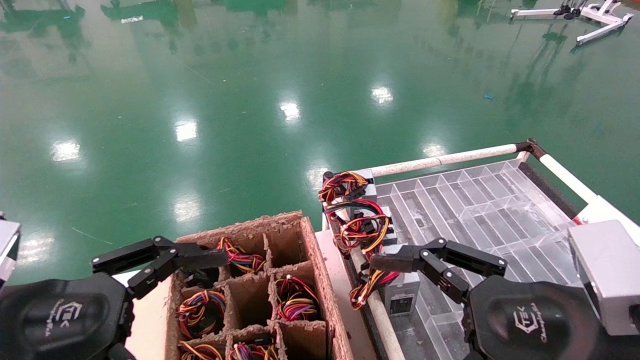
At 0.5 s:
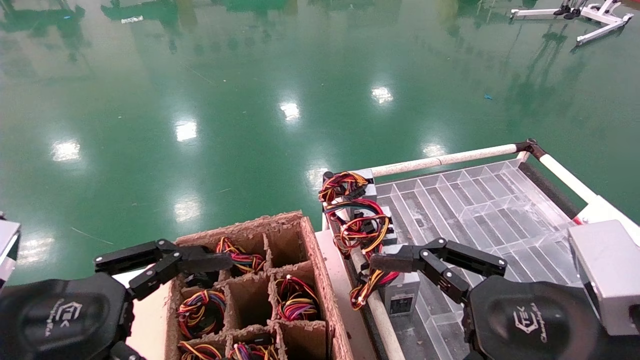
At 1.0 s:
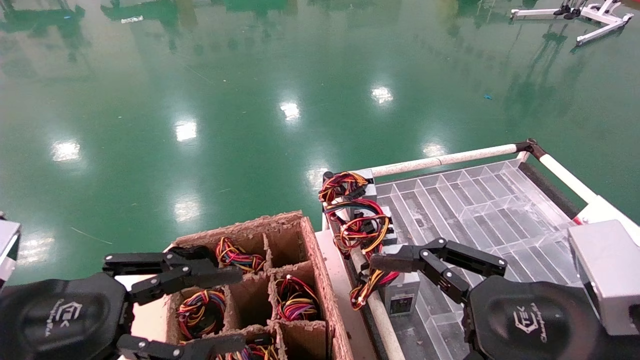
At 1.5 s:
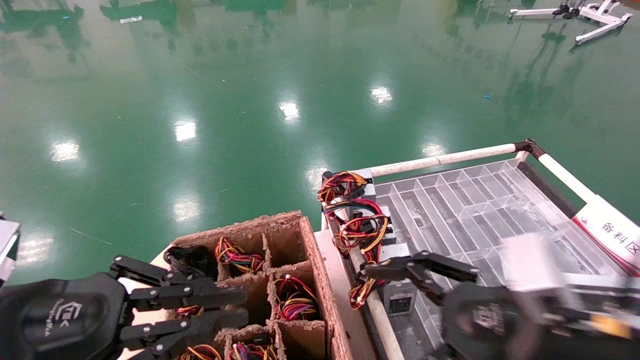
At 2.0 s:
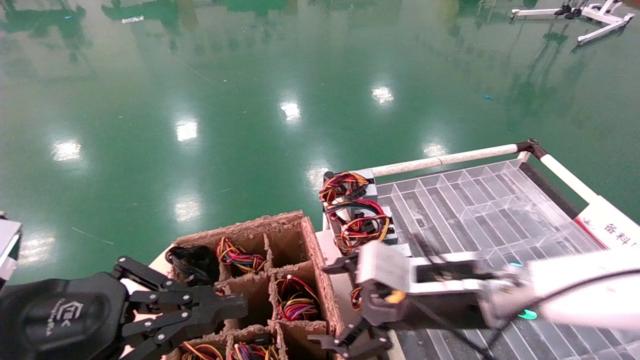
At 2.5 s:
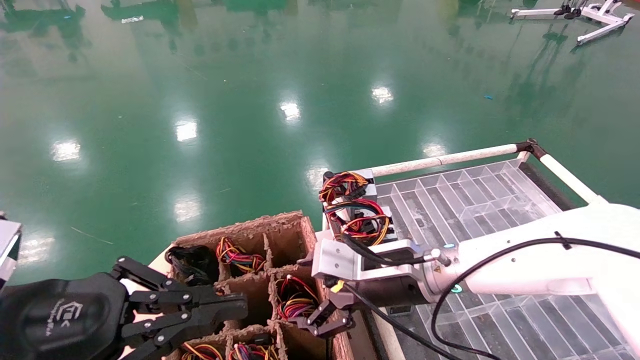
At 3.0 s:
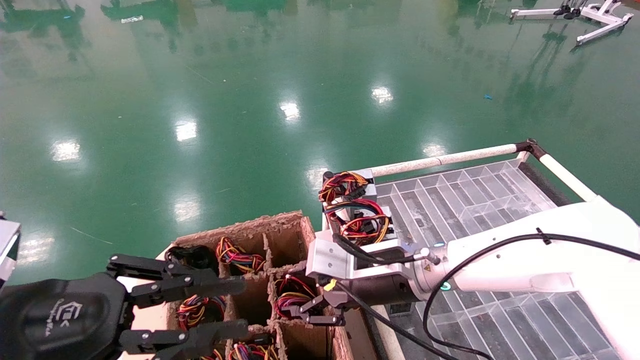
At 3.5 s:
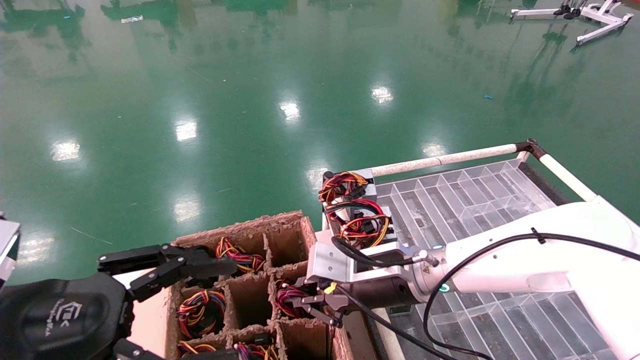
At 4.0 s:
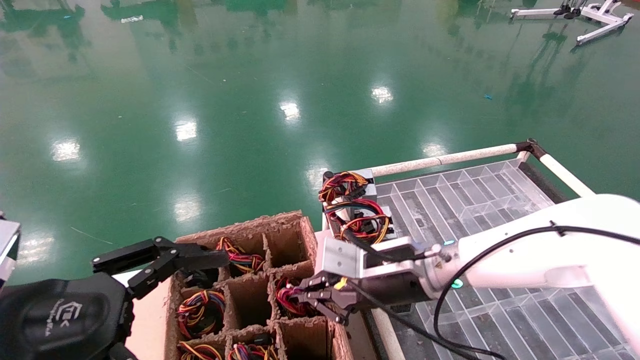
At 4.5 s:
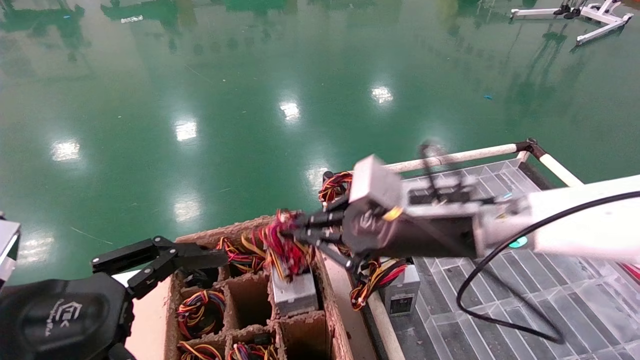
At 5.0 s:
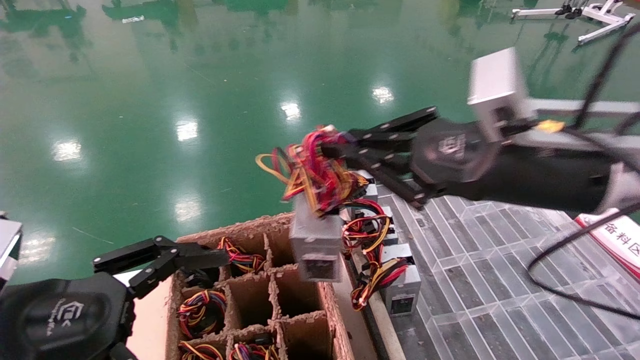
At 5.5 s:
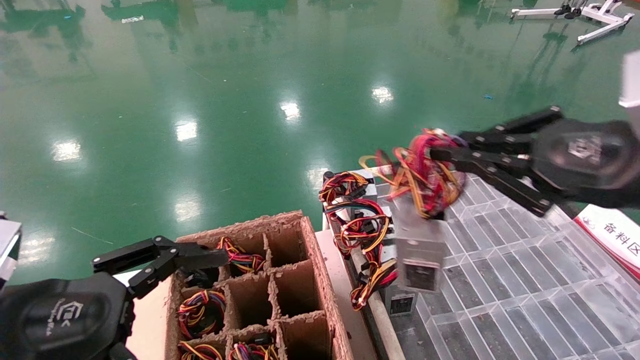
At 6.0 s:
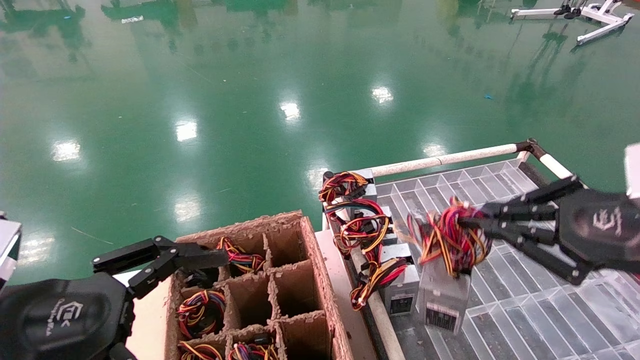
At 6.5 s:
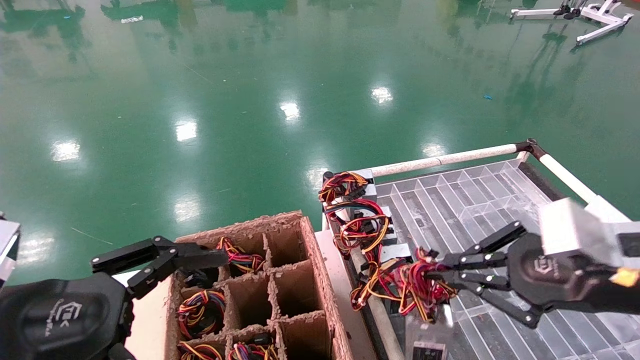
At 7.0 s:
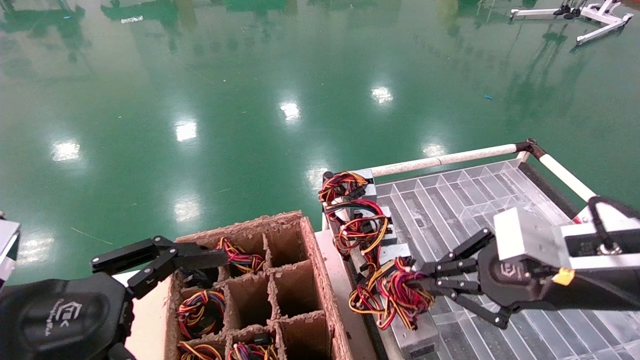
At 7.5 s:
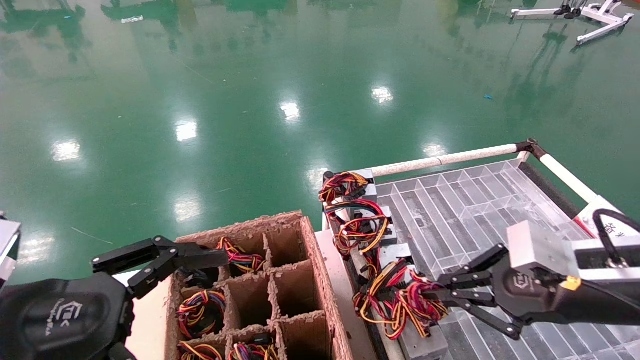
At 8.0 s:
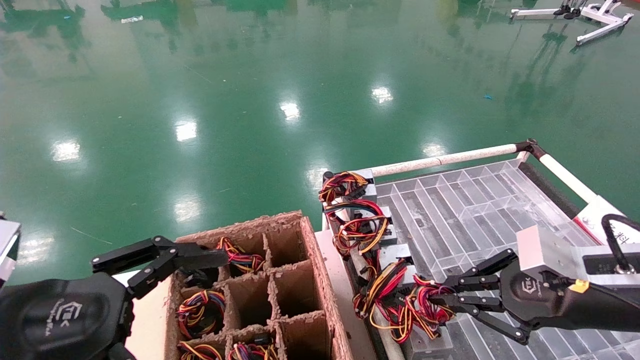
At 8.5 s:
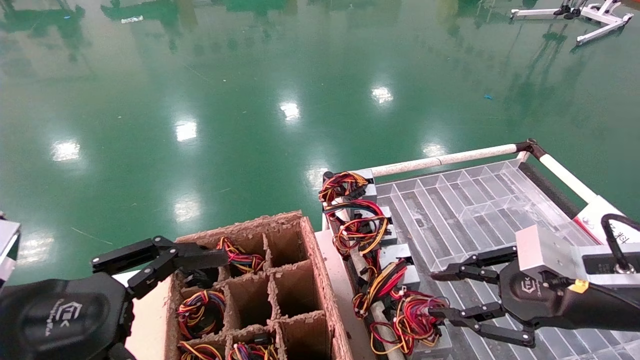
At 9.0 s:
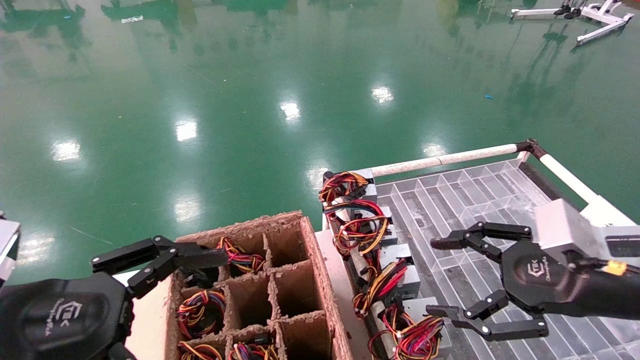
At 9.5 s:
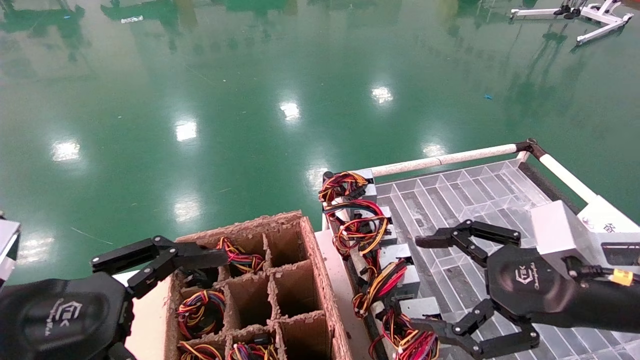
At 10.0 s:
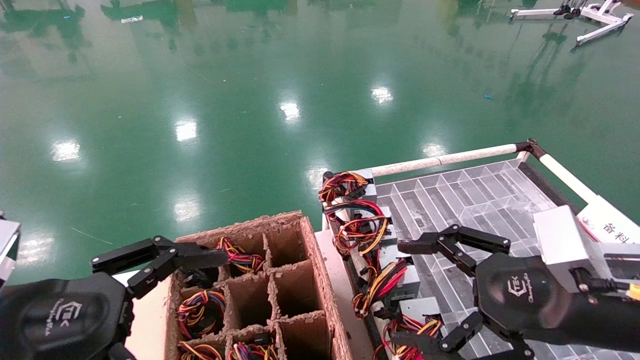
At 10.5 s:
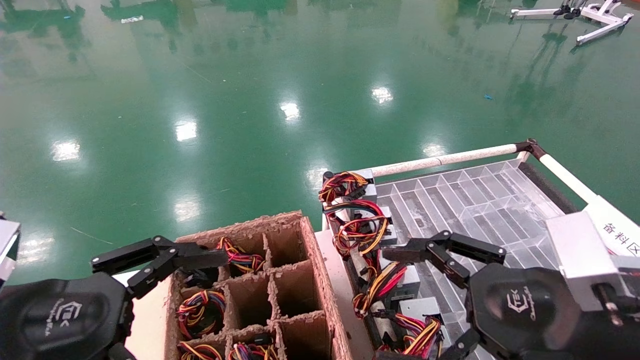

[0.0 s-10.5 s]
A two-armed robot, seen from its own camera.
Step, 1.0 to 3.5 s: Grab and lift the power supply from the large box.
Step, 4.0 to 8.0 s: Place the power supply on the operating table.
0.0 to 2.0 s: The left gripper closes up, while the right gripper shifts about 15 cm forward and to the left.
2.0 to 4.0 s: The right gripper moves approximately 5 cm, and closes; the left gripper opens.
4.0 to 6.5 s: The right gripper goes about 25 cm to the right and backward.
6.5 to 8.5 s: The right gripper changes place by approximately 5 cm.
8.5 to 10.5 s: The right gripper heads to the left and backward, covering roughly 10 cm, and opens its fingers.
